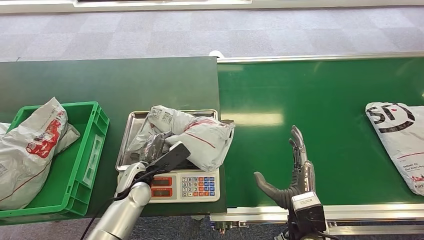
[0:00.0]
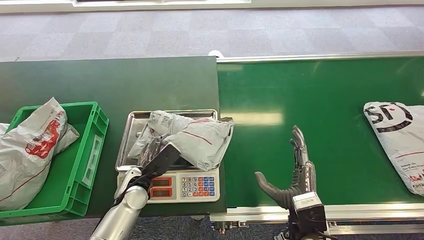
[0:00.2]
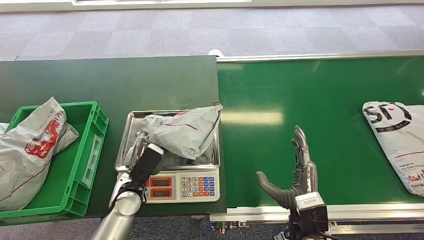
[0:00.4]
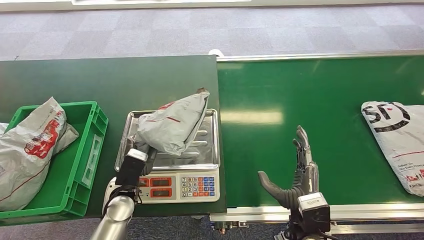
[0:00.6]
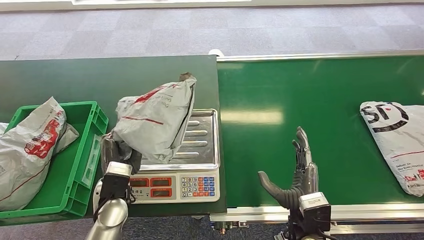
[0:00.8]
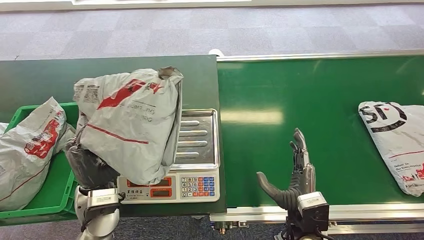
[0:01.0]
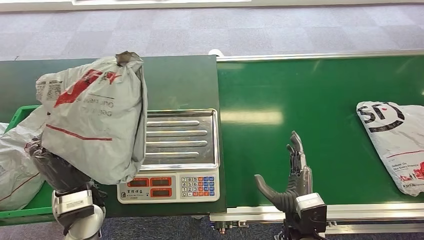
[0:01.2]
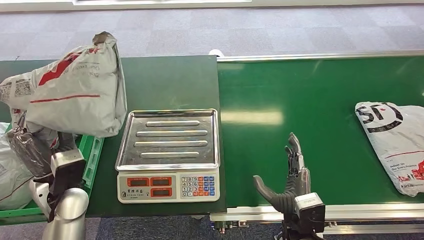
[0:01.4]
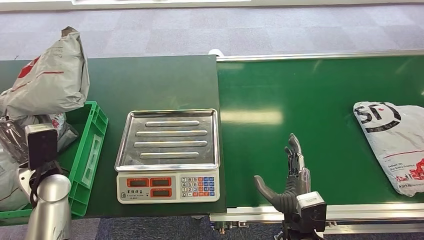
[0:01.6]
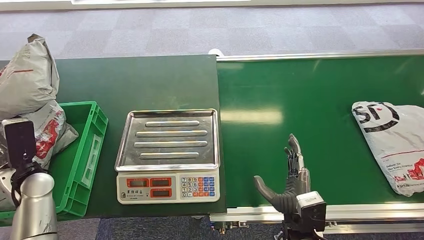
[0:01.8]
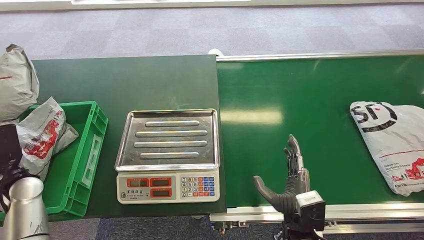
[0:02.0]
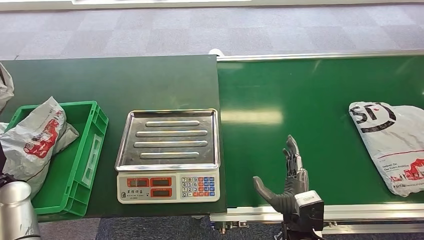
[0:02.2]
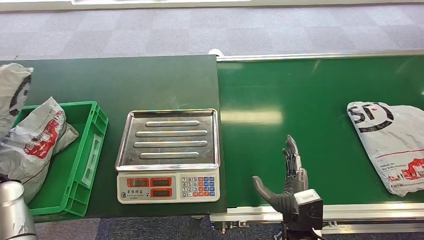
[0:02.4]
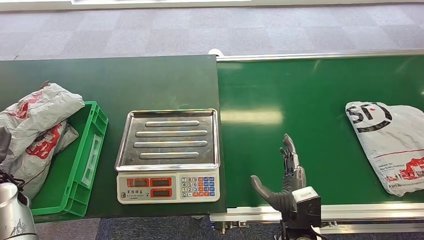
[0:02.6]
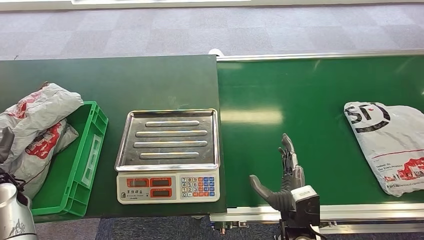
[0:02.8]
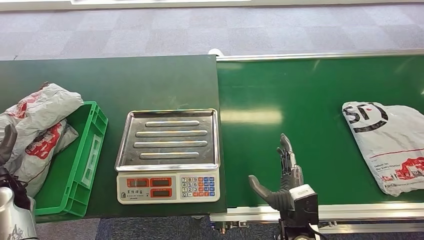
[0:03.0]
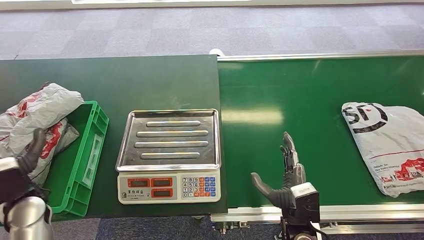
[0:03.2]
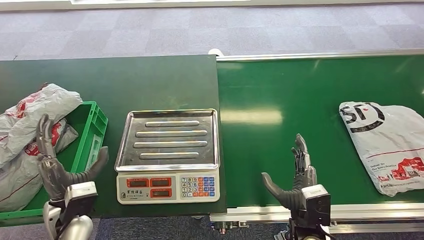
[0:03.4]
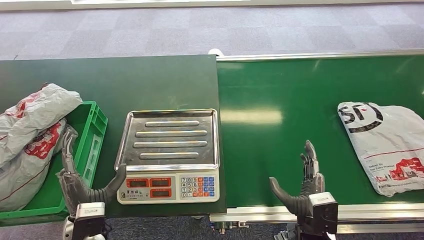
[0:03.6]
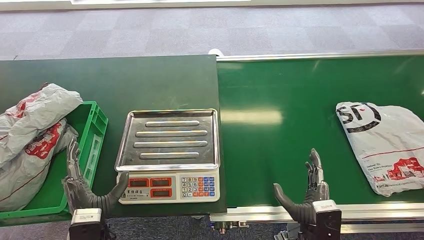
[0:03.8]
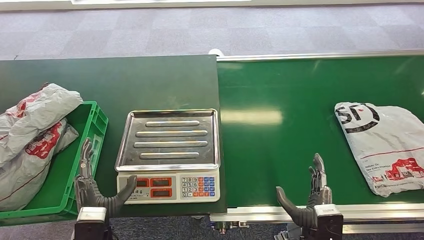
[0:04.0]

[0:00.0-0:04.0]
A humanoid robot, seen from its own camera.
Step, 0:00.2 to 0:01.2: Pick up the package from the inbound machine.
Step, 0:02.2 to 0:04.0: Place the package into the parcel locker.
0:02.6 to 0:04.0: The right hand changes place by about 5 cm. Meanwhile the left hand goes about 30 cm to the right and backward.

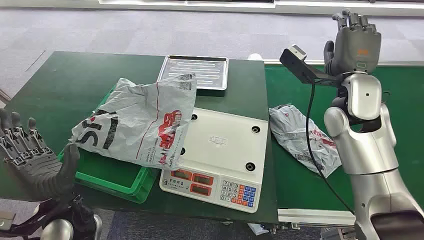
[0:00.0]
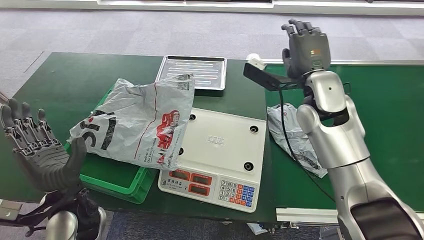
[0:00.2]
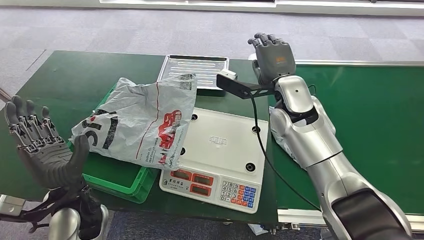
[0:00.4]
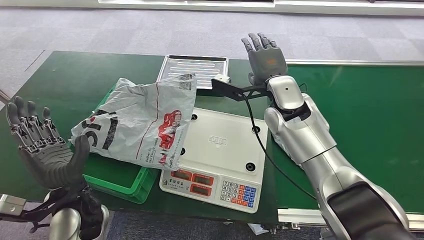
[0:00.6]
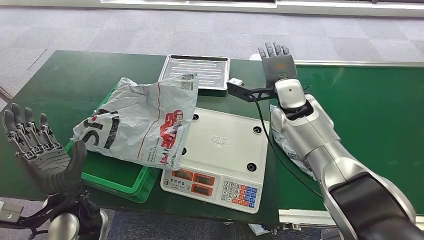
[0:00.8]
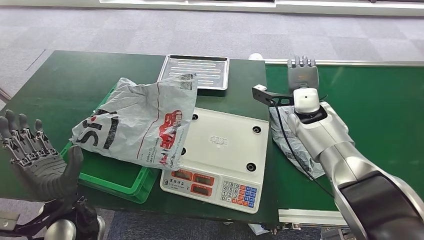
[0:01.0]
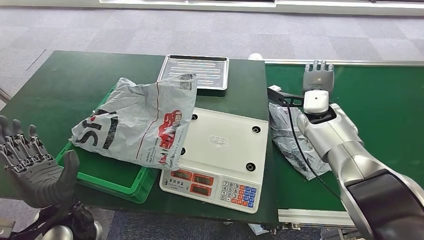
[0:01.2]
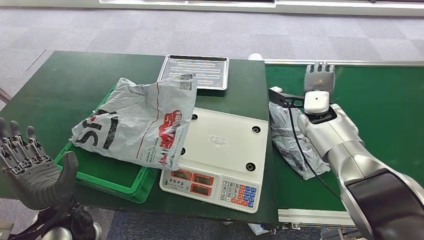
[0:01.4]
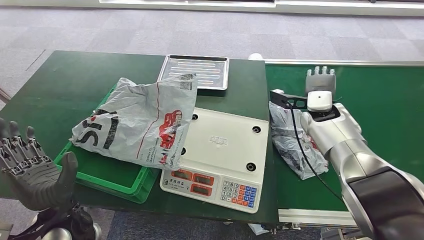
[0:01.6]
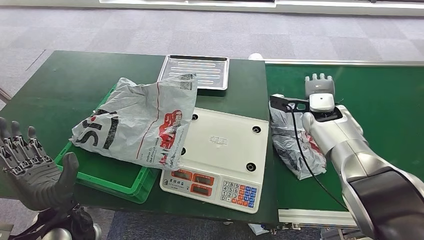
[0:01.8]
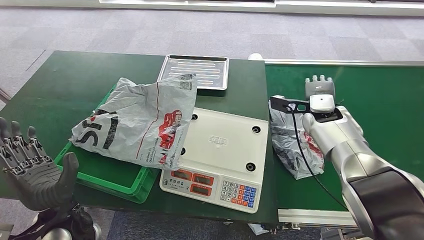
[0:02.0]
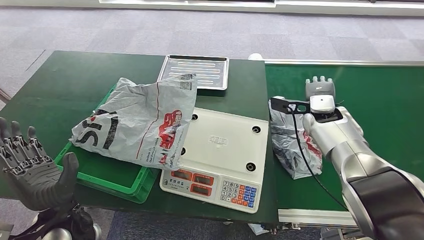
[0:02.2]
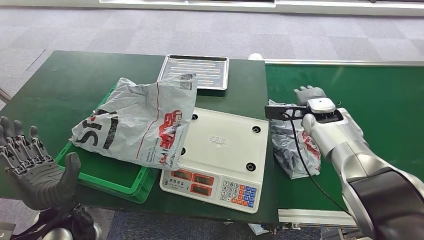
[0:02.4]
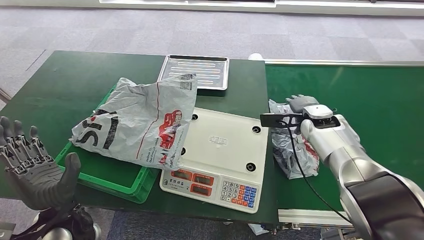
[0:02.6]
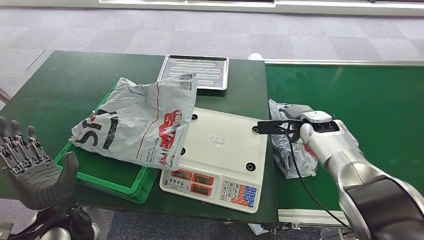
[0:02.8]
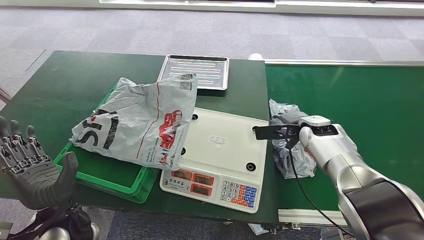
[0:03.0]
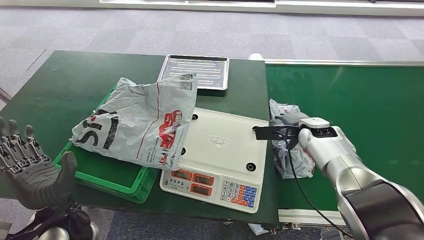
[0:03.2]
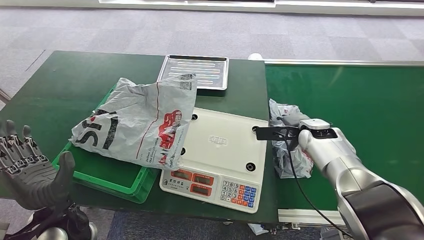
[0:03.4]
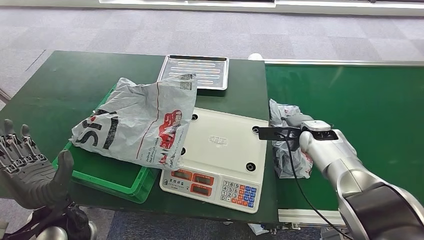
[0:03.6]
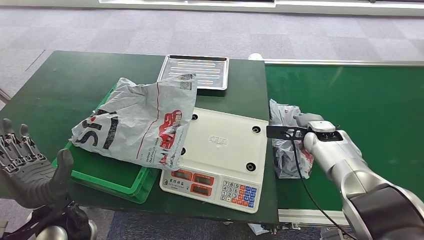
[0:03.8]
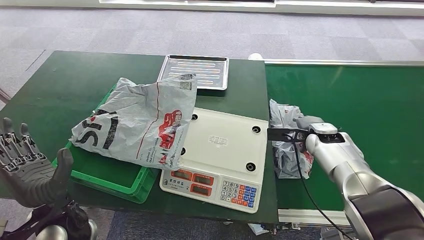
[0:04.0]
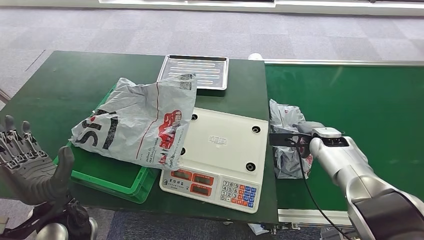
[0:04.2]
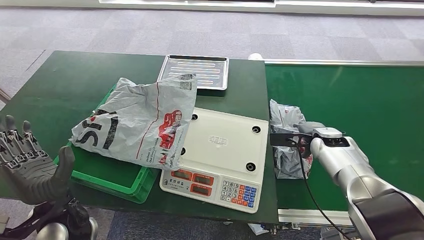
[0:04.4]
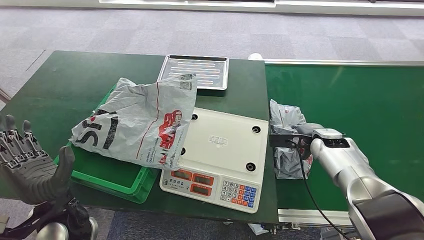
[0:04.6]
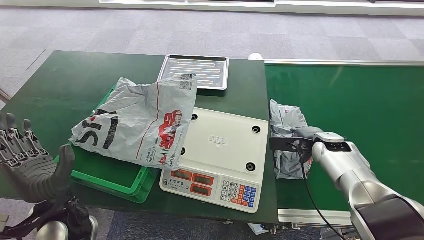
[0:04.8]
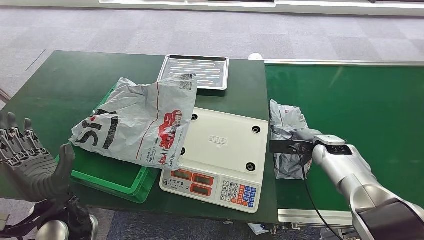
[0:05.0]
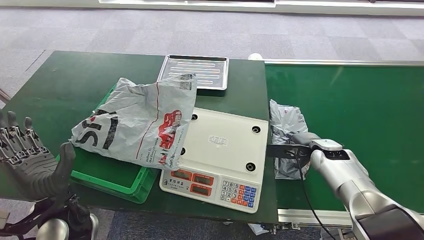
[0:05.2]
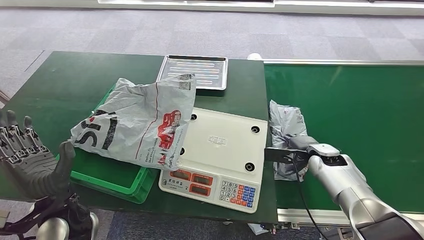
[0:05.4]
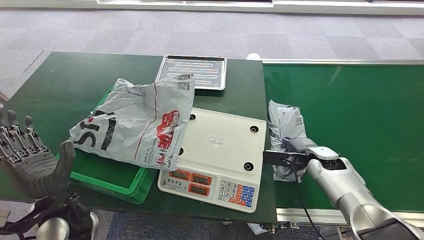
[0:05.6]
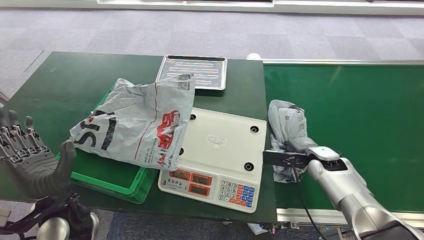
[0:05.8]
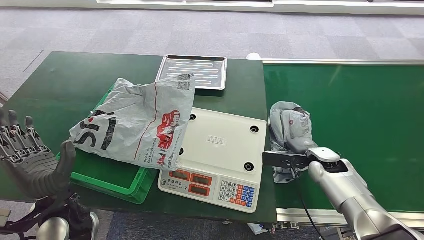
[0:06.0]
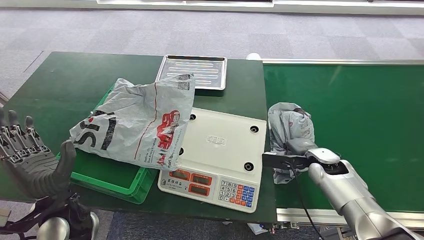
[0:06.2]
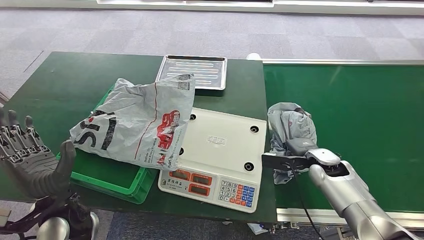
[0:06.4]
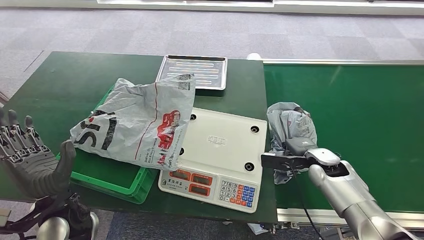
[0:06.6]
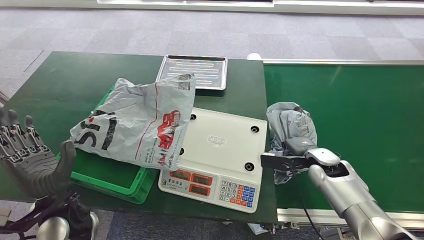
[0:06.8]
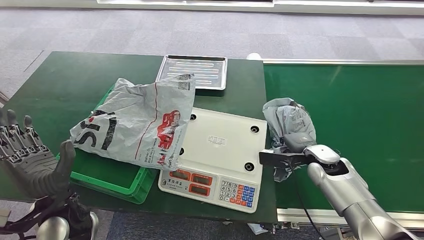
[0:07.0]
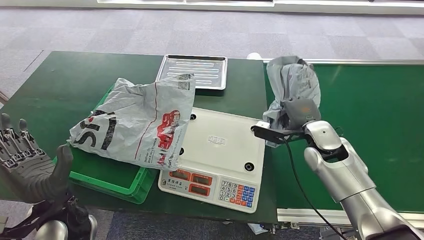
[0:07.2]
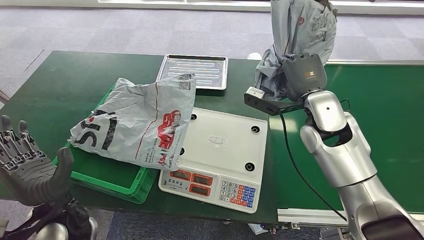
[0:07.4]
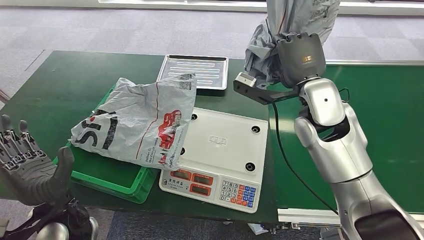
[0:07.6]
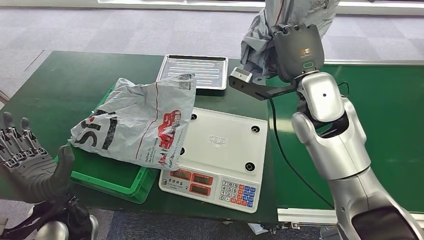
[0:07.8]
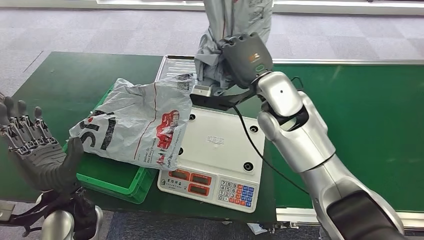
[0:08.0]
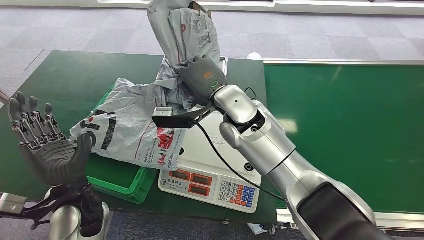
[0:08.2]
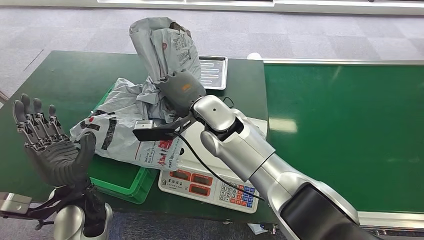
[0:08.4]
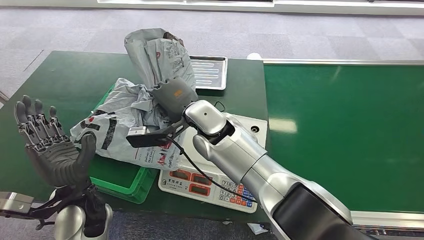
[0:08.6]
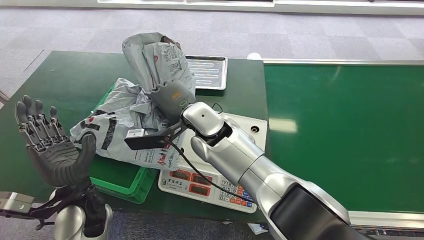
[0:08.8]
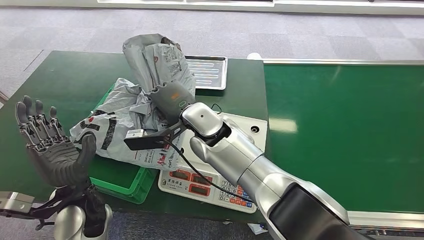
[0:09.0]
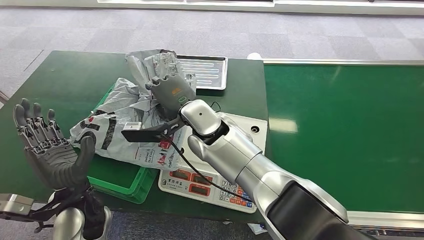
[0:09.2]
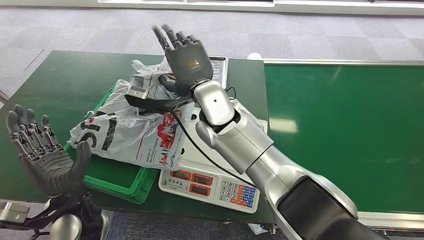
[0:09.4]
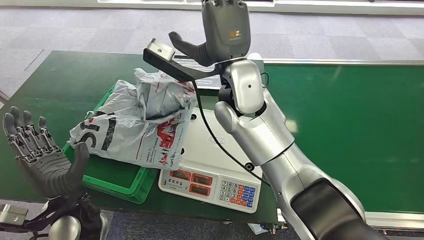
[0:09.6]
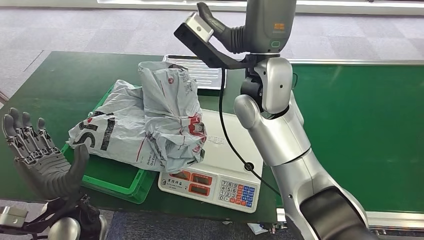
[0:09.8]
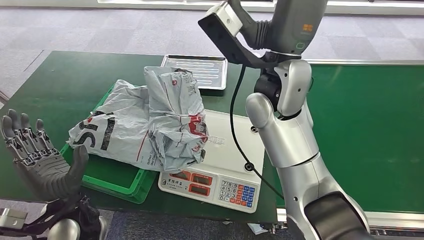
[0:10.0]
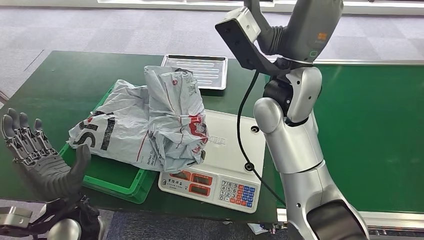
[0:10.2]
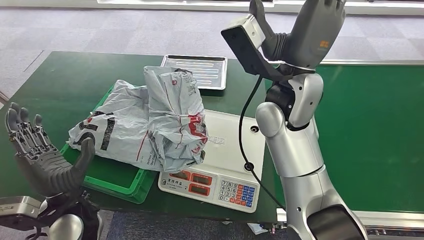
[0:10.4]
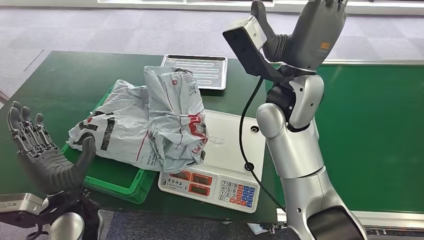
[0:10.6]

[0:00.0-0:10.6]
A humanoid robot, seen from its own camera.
Step, 0:00.0 to 0:07.6: Pick up the package from the conveyor belt.
Step, 0:07.8 to 0:10.4: Place the package onto the inbound machine.
0:01.6 to 0:03.0: The right hand goes about 5 cm downward.
0:03.0 to 0:04.6: The right hand shifts by roughly 5 cm.
0:04.6 to 0:06.0: The right hand changes place by about 5 cm.
